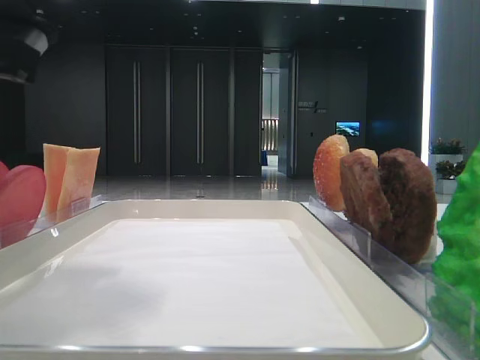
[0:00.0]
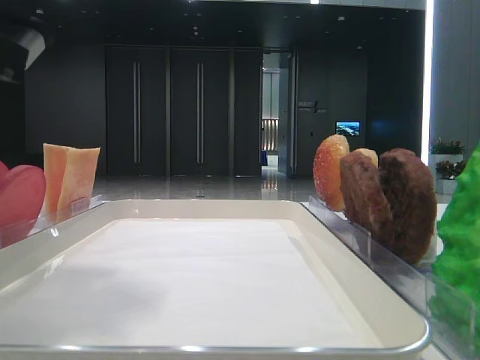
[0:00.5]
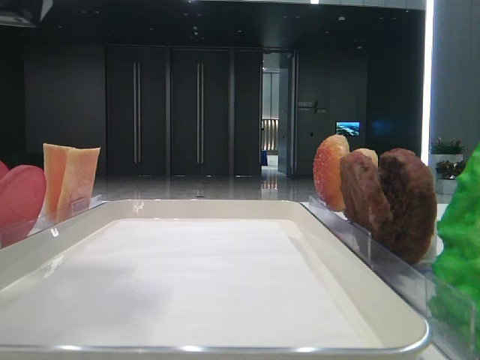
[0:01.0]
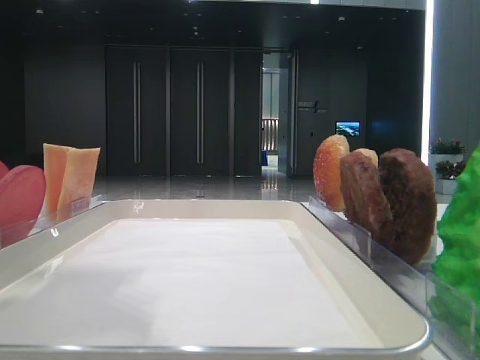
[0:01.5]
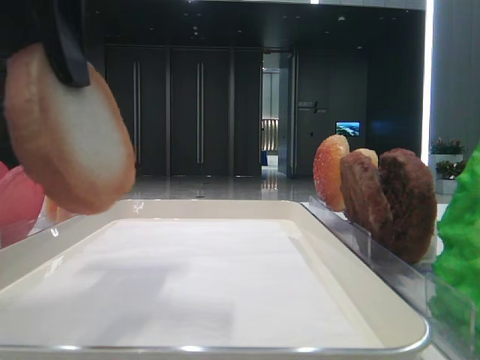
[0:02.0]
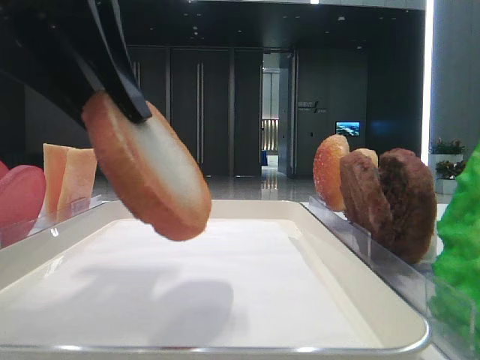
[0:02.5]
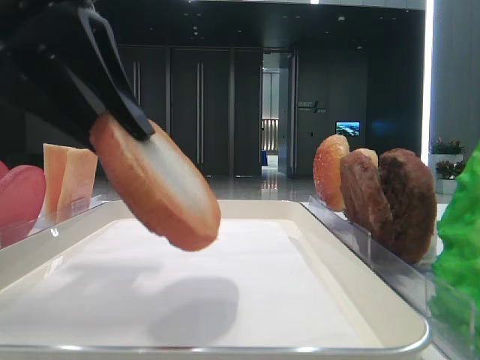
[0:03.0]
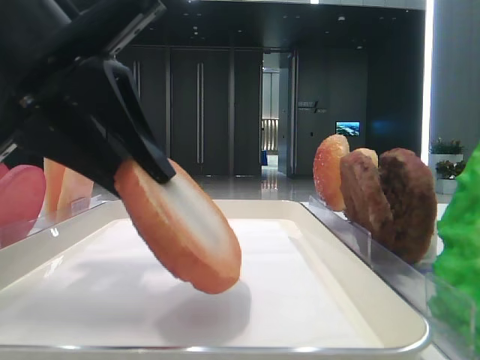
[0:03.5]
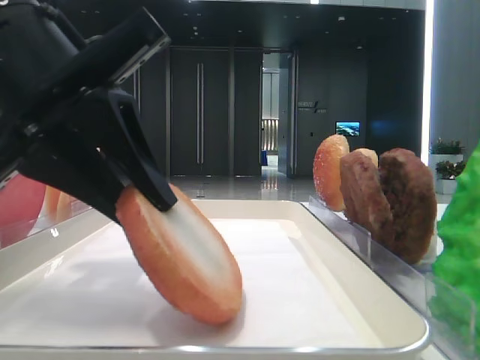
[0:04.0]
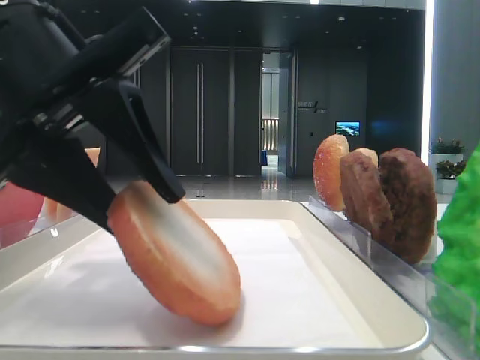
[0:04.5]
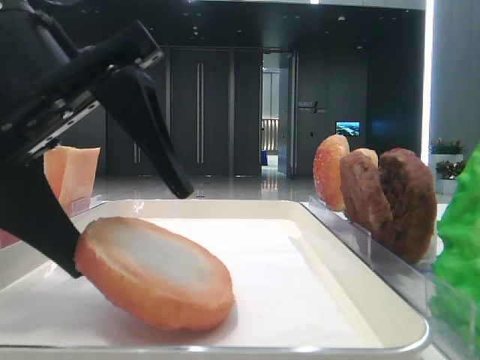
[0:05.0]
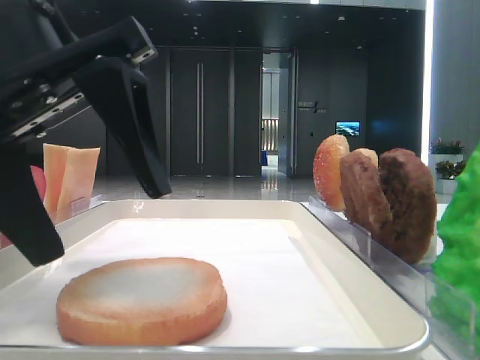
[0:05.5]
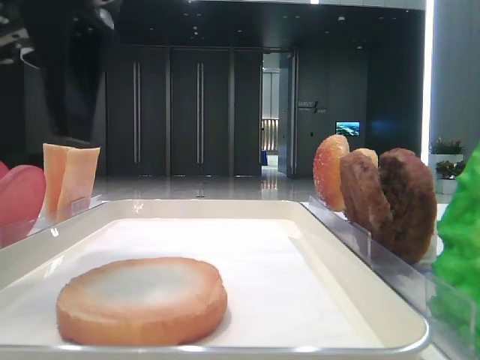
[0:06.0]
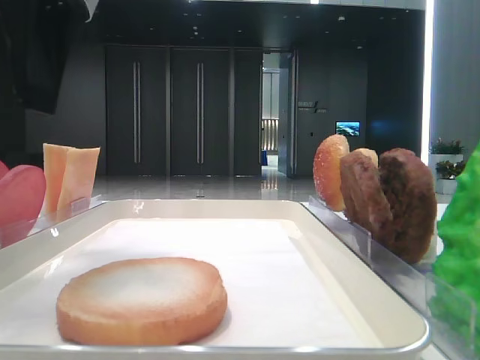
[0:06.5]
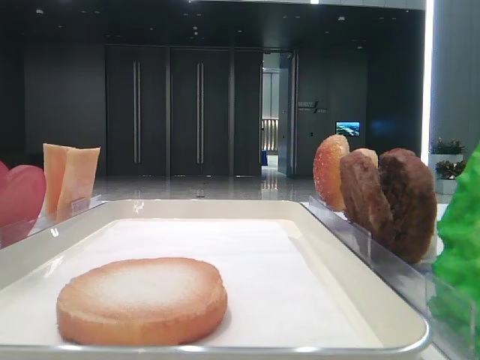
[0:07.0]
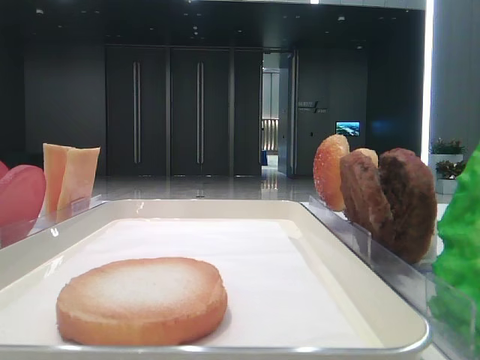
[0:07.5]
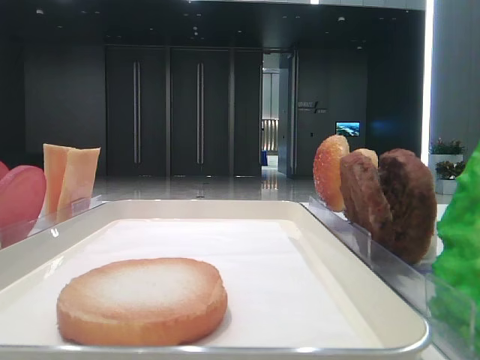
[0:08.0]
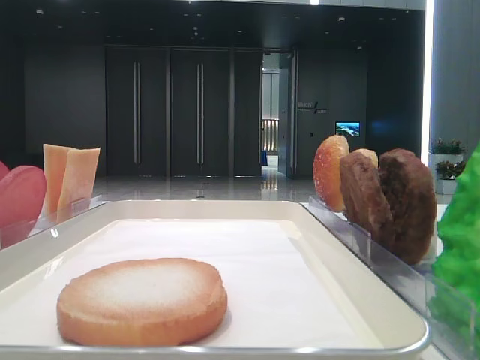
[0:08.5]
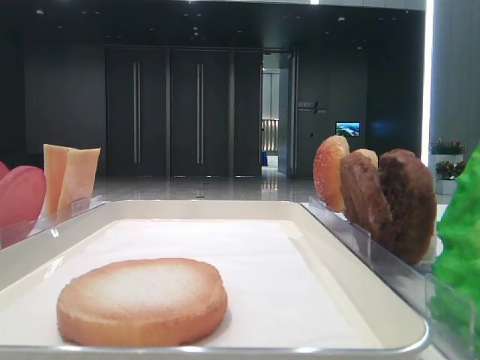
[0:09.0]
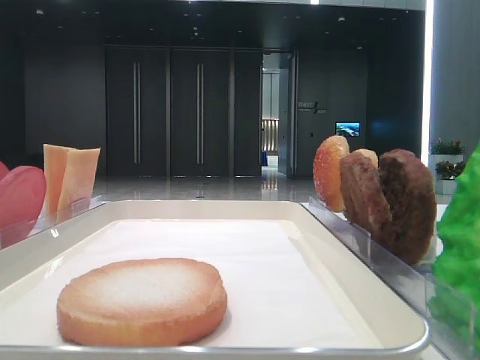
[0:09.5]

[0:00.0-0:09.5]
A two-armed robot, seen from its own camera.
Step, 0:01.0 to 0:05.0: Place the bread on the tray with the left hand.
0:00.0 to 0:02.0: The left gripper shifts about 5 cm upward.
0:02.0 to 0:04.0: The left gripper moves downward, approximately 10 cm.
0:04.0 to 0:05.5: The left gripper opens up.
0:05.5 to 0:07.5: The left gripper moves to the left and upward, approximately 25 cm.

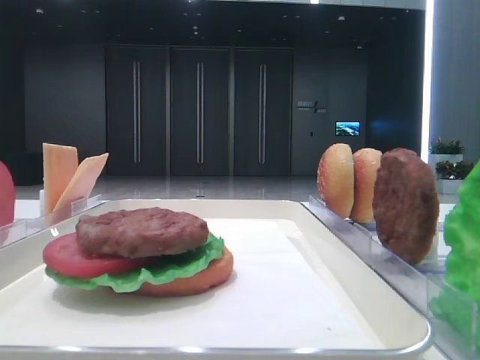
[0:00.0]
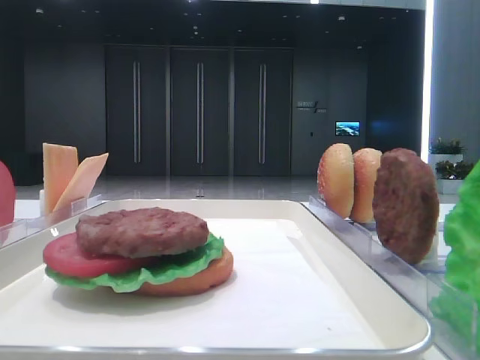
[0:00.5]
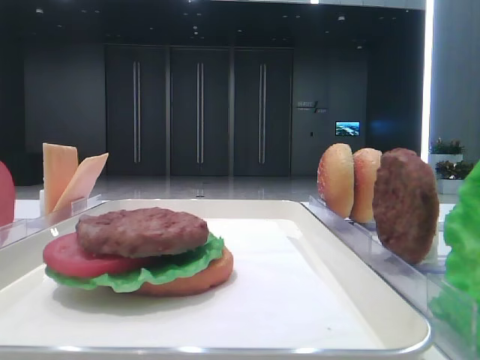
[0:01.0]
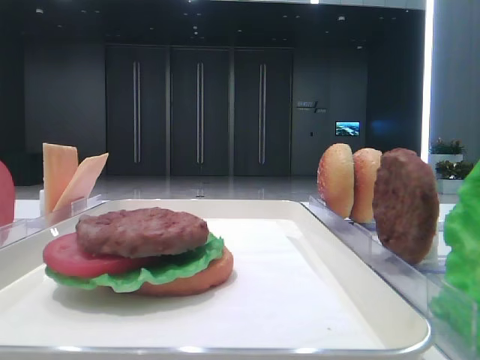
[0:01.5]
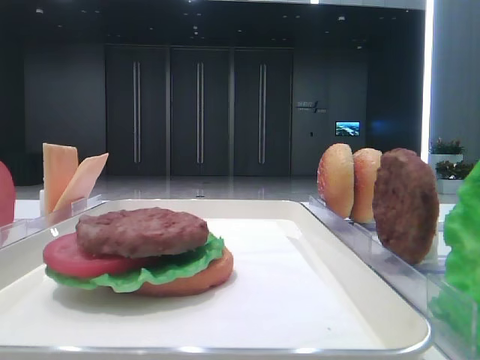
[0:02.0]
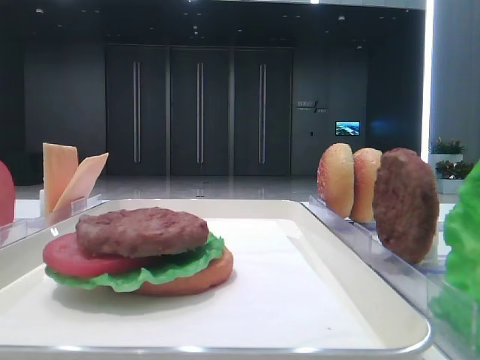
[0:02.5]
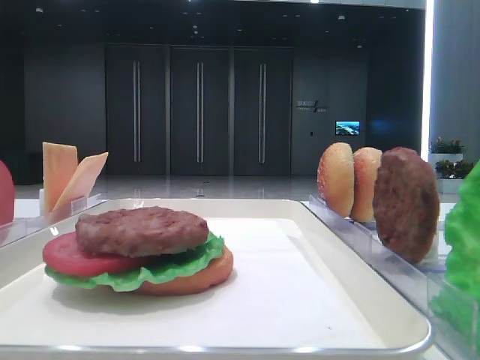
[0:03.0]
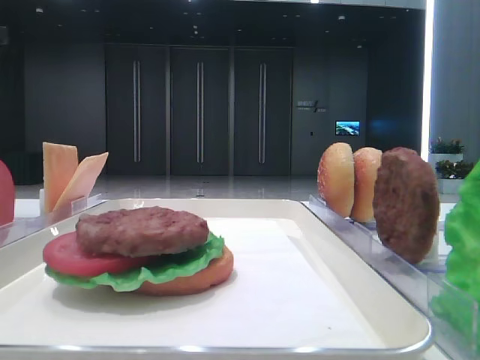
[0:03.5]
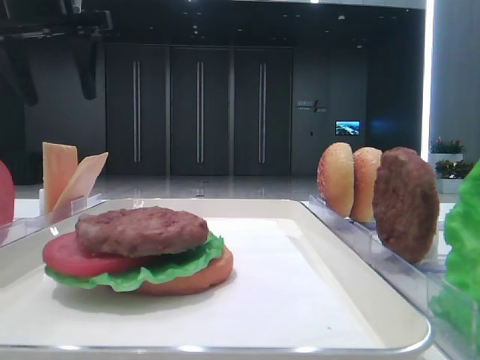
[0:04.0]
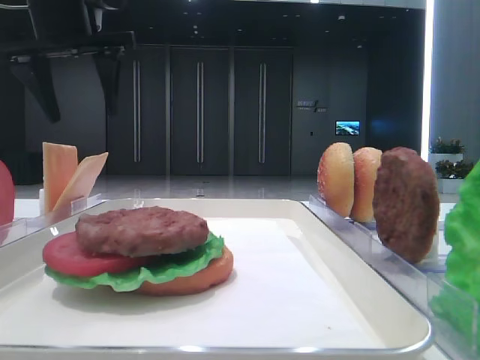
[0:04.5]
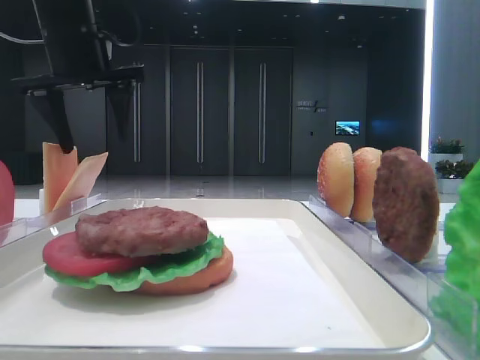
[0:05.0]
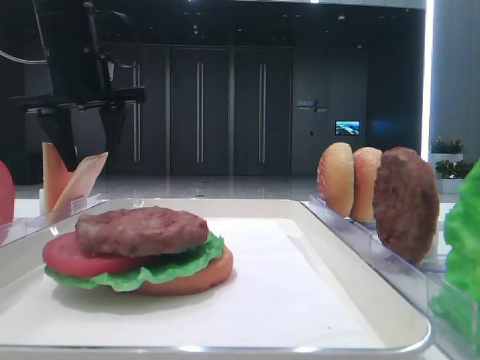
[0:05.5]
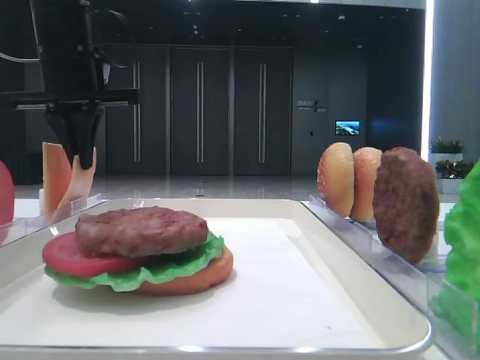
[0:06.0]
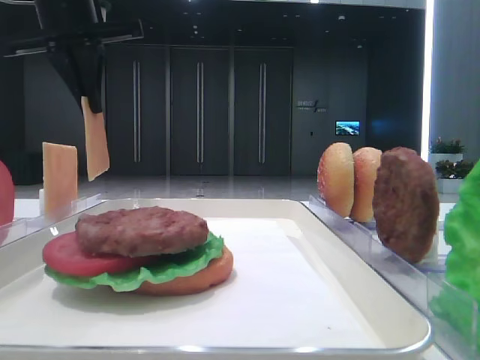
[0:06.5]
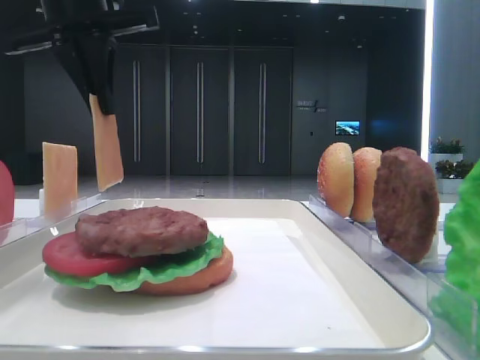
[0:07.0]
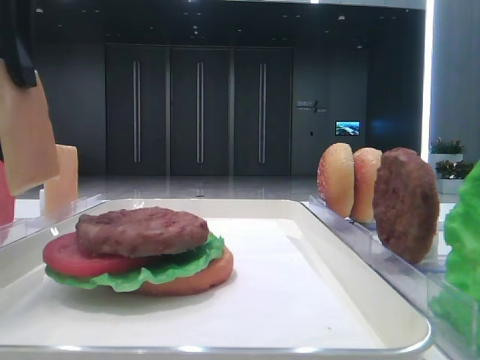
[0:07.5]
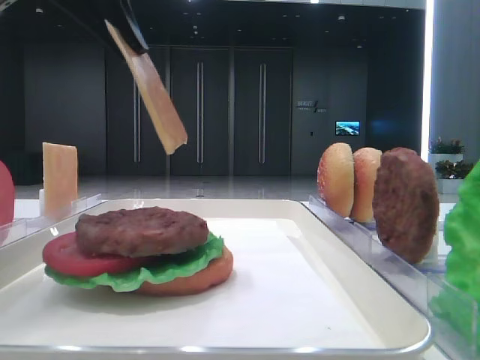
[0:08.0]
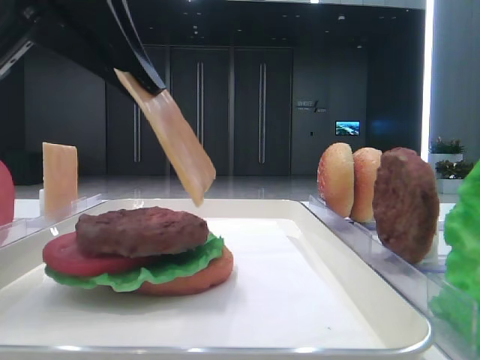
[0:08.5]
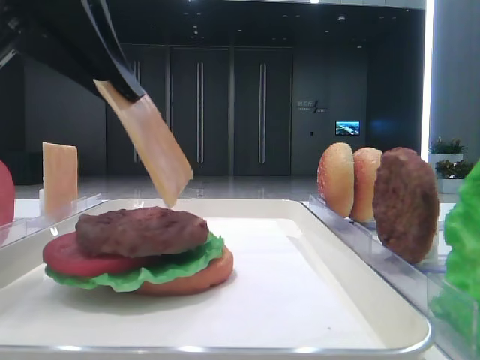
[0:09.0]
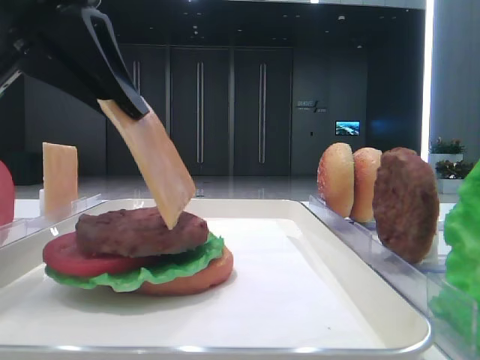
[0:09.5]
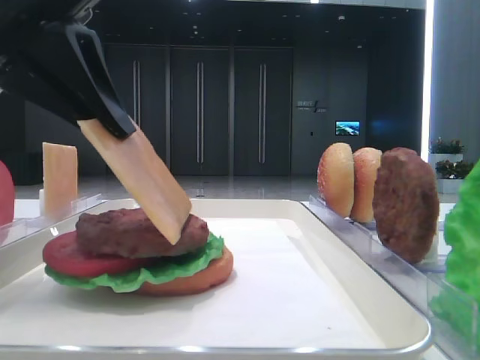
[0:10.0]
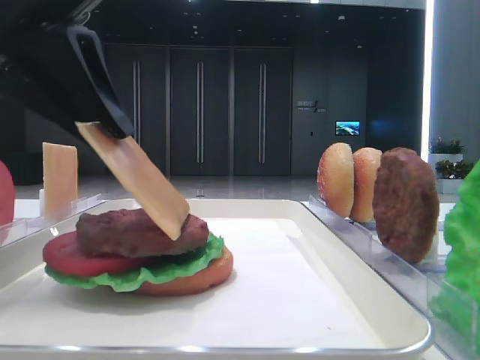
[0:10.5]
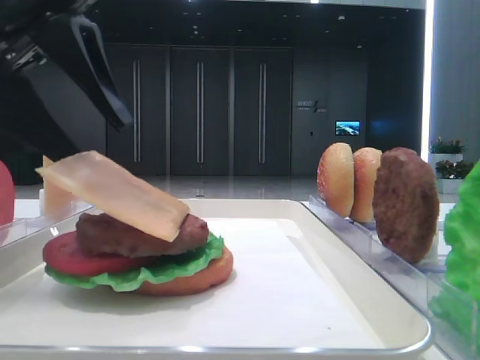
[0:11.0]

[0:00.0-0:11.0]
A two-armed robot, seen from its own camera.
Step, 0:00.0 to 0:06.0: Pick up the cheese slice with the left hand.
Step, 0:06.5 to 0:11.0: Place the cheese slice on the patty with the left hand.
0:02.0 to 0:03.5: The left gripper goes roughly 40 cm forward.
0:03.5 to 0:05.5: The left gripper heads to the right and downward, covering approximately 15 cm.
0:05.5 to 0:07.5: The left gripper is displaced backward by approximately 20 cm, and closes its fingers.
0:09.0 to 0:11.0: The left gripper opens up.

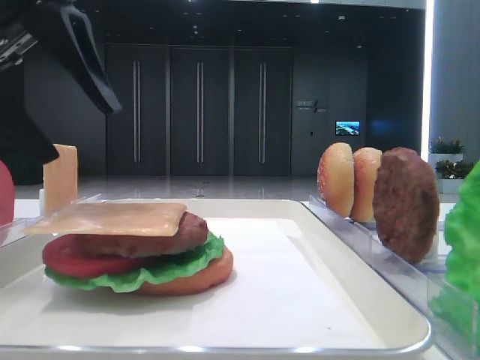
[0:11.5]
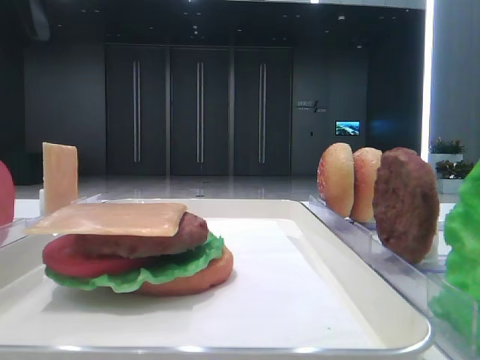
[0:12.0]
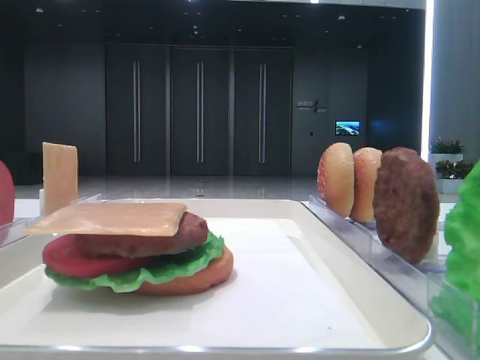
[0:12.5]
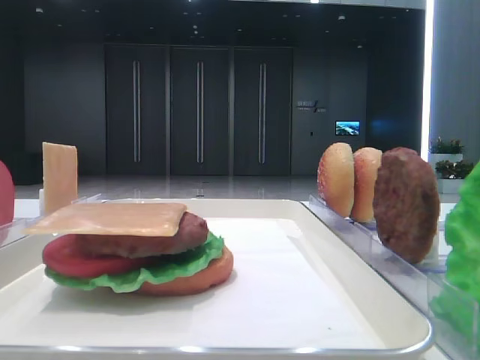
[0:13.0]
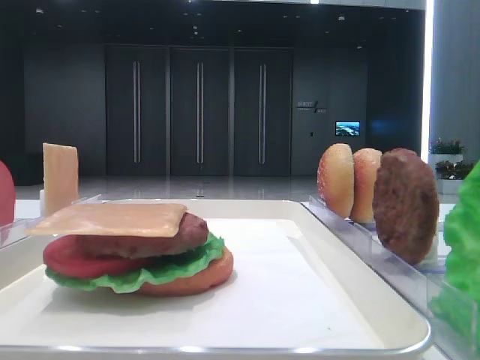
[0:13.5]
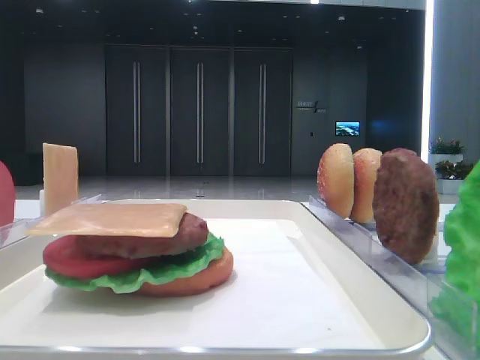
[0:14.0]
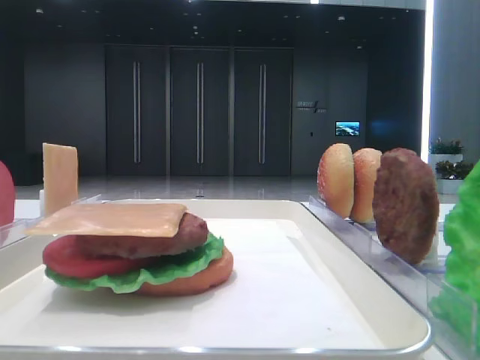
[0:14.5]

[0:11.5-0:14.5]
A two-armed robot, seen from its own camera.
0:11.5 to 0:13.0: The left gripper travels to the left and upward by about 20 cm.

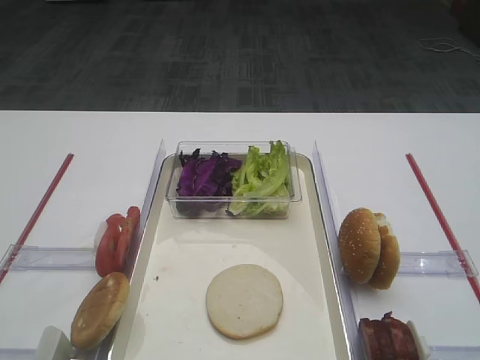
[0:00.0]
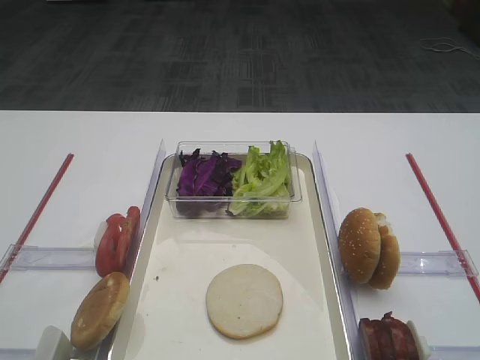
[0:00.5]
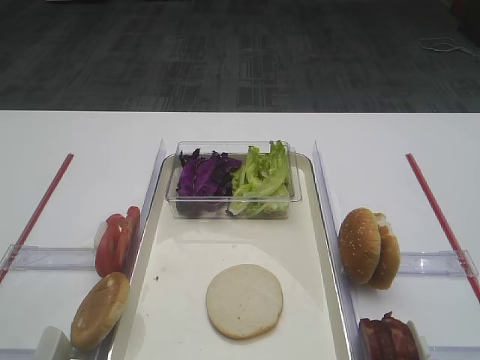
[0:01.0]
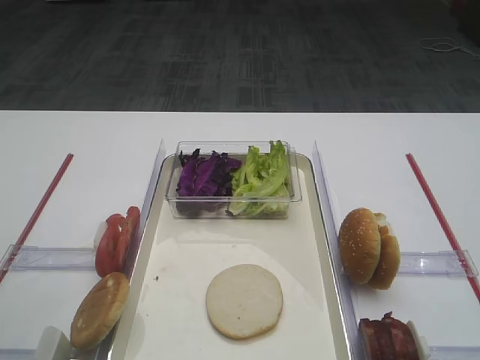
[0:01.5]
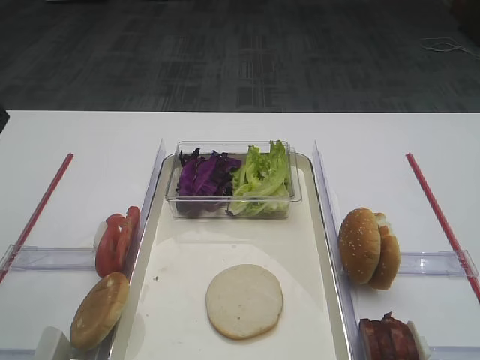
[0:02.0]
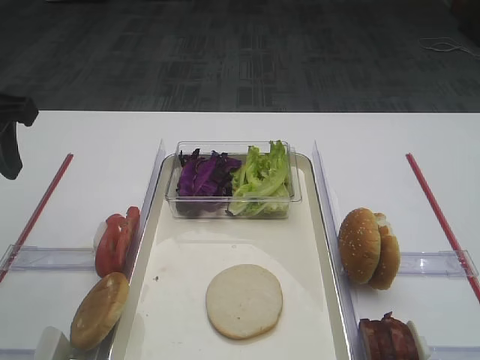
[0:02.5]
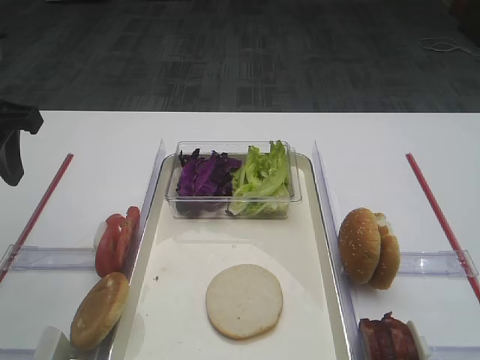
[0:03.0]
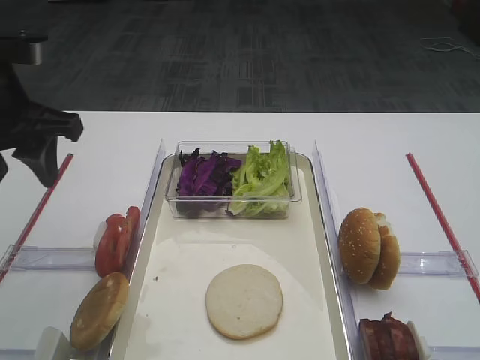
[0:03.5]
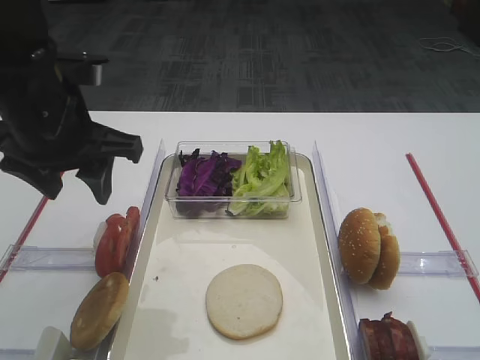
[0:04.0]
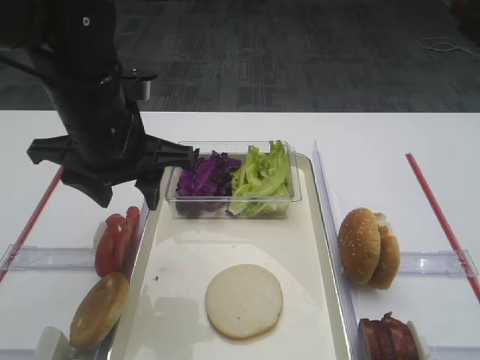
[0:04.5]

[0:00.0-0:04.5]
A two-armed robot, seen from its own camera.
0:02.0 to 0:04.5: The left gripper moves to the right, downward and forward, approximately 15 cm.
